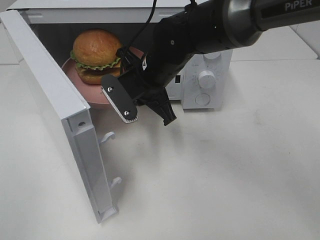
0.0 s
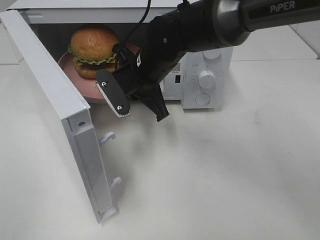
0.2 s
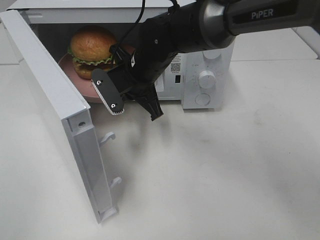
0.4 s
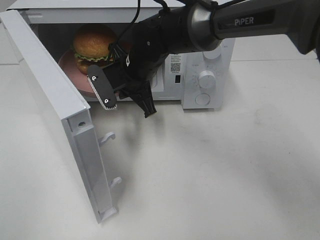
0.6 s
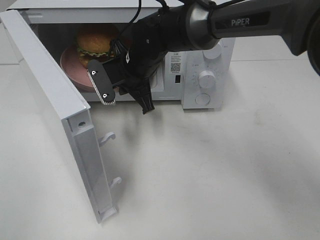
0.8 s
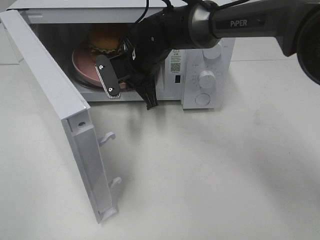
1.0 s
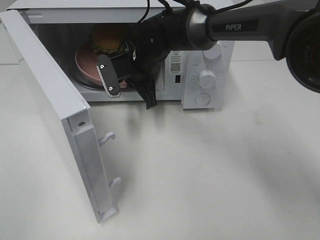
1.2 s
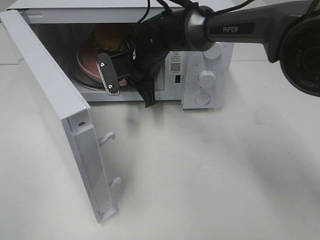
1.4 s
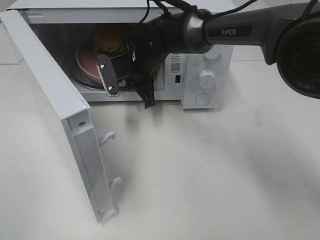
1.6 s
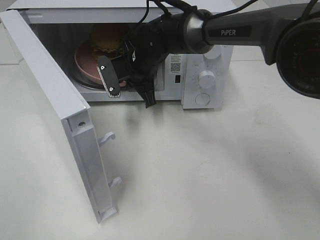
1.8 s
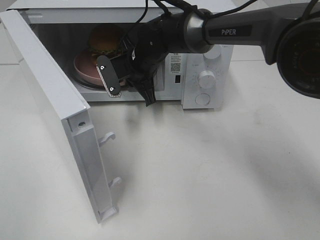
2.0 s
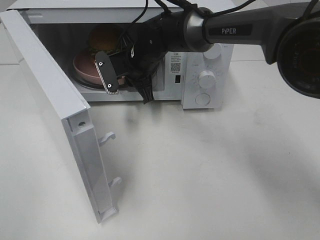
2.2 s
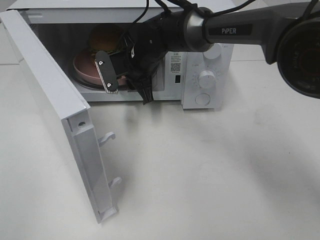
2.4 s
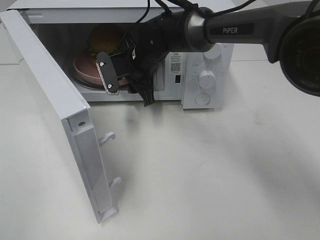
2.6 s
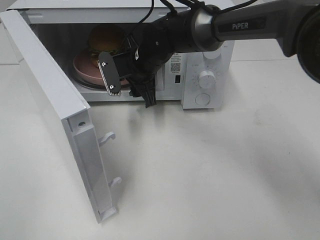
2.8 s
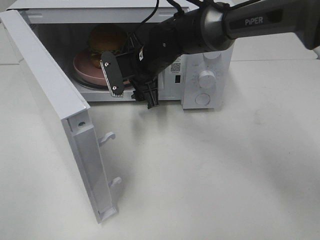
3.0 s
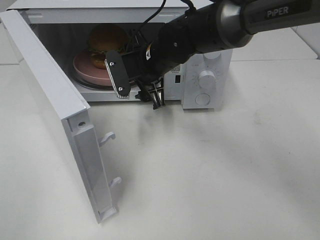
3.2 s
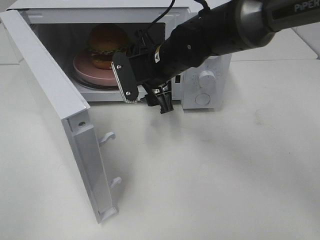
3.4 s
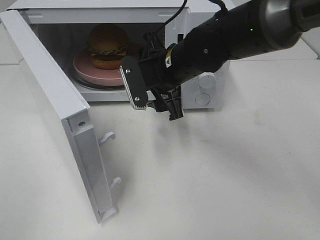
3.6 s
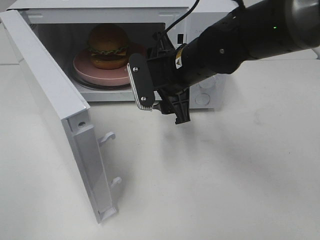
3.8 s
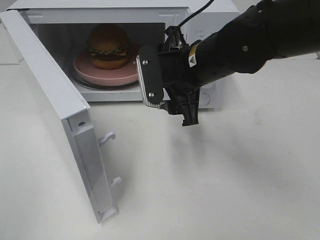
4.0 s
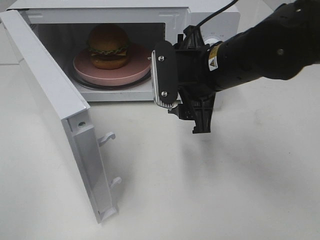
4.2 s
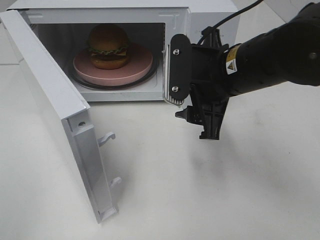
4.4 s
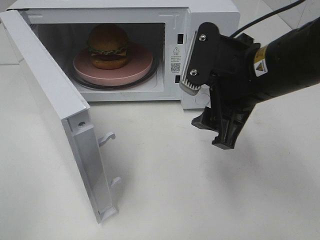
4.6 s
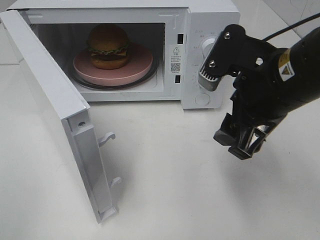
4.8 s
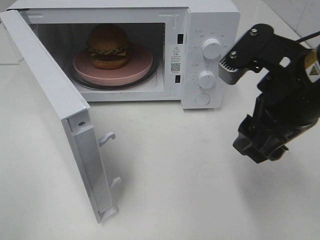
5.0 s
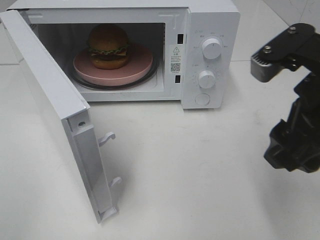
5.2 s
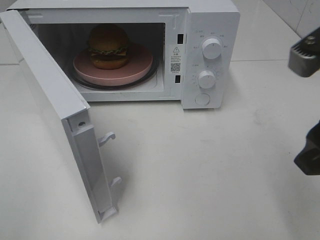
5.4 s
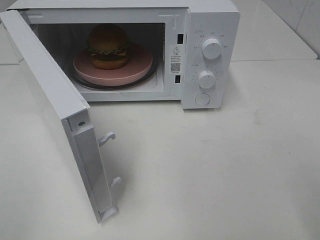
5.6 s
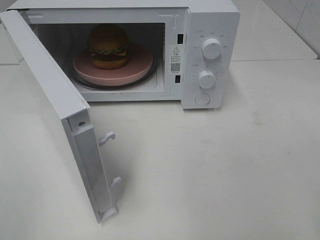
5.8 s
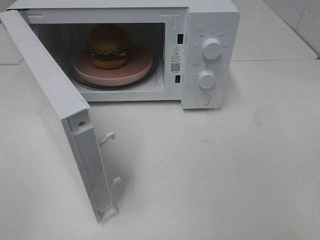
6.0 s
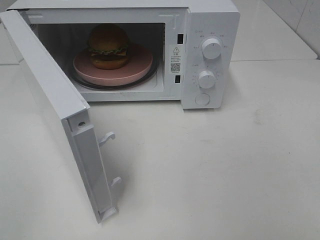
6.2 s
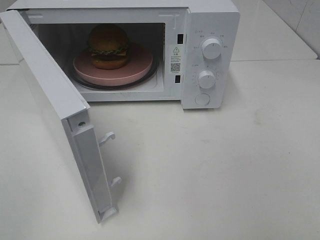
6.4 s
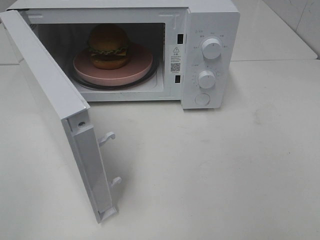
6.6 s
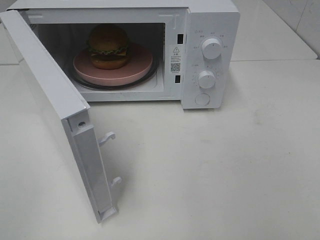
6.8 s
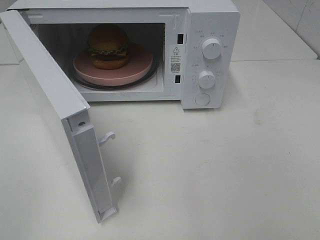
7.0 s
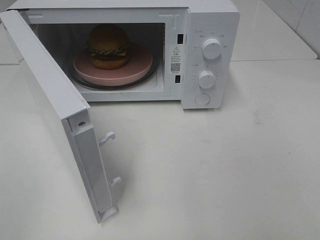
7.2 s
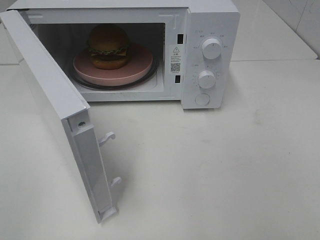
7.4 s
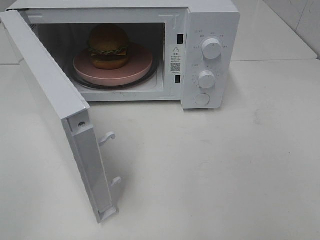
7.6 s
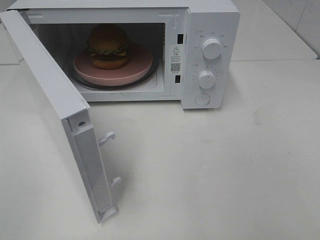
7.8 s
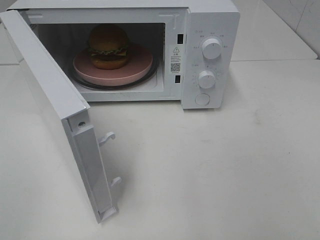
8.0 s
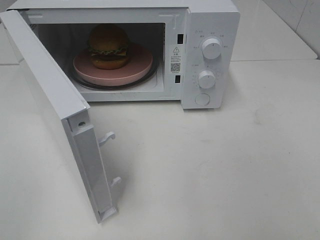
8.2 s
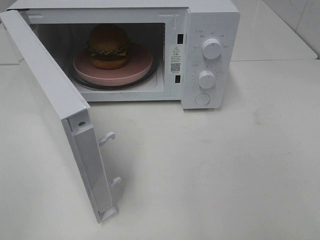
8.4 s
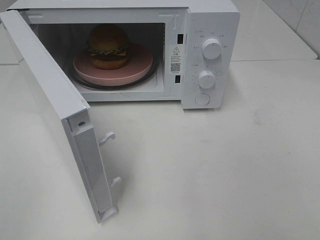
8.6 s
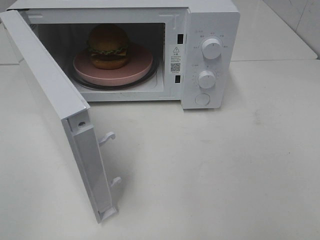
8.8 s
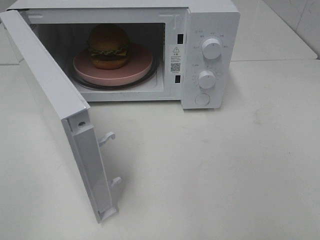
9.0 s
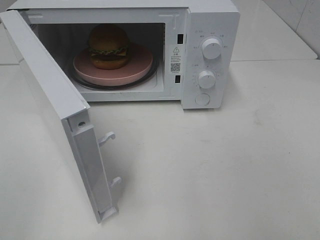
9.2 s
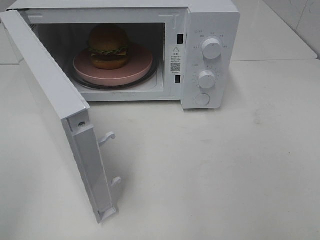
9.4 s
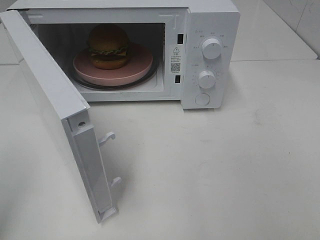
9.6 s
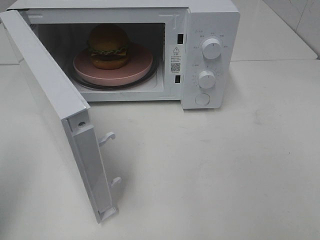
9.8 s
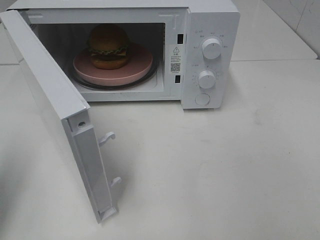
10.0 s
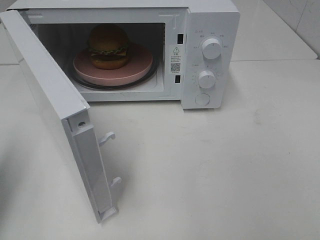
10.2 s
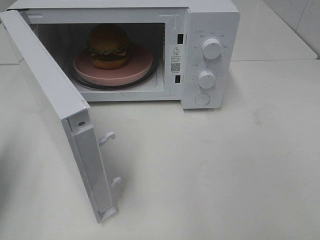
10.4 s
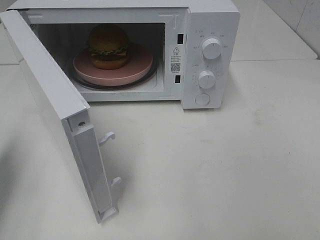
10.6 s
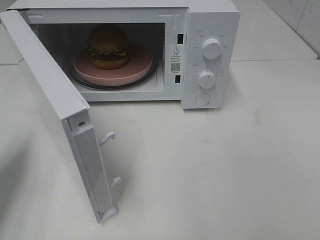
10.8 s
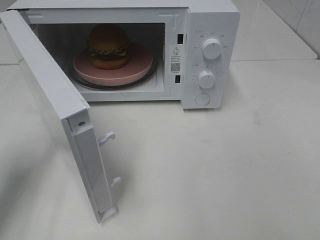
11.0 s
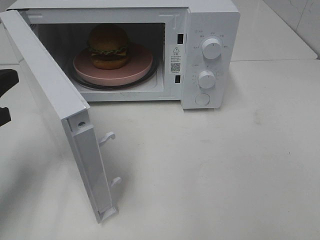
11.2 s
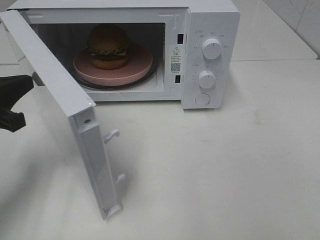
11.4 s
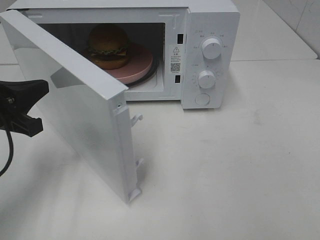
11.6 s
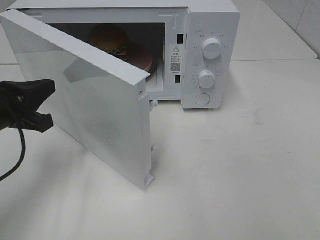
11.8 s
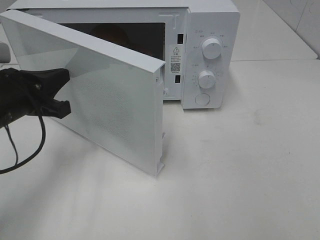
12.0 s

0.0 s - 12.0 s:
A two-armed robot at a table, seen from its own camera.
Task of the whole recording: Heat the burger.
Step, 0.0 s - 2.6 s: Right hand: place the plate in the microwave.
0.0 s - 1.6 s: The right gripper moves forward, approximately 10 cm.
1.6 s - 3.0 s: The right gripper opens up.
3.0 s - 4.4 s: The right gripper goes about 20 cm backward, to the right and upward.
4.4 s - 6.0 s: The right gripper is displaced backward, to the right and upward by roughly 25 cm.
7.6 s - 9.0 s: The two grippers keep their place.
9.0 s - 10.4 s: The left gripper travels forward by roughly 20 cm, and closes.
10.4 s - 12.0 s: The left gripper travels to the right, forward and downward by roughly 15 cm.

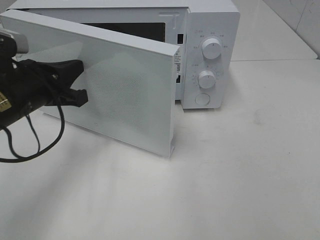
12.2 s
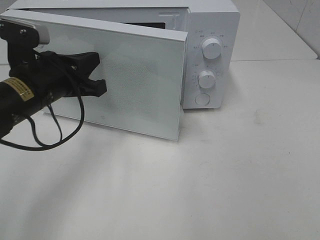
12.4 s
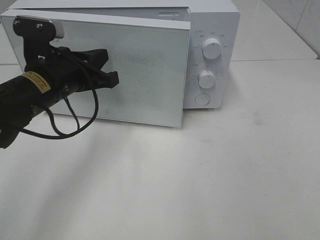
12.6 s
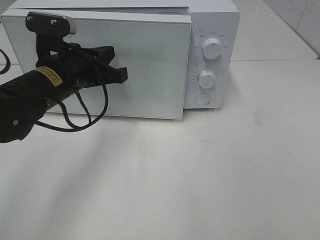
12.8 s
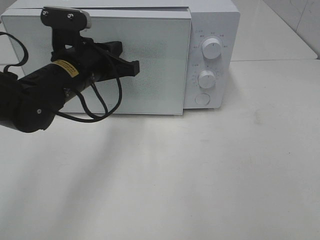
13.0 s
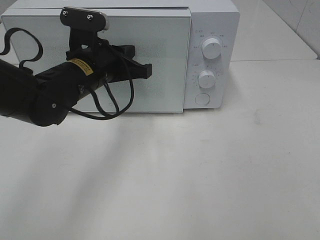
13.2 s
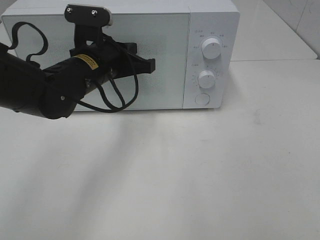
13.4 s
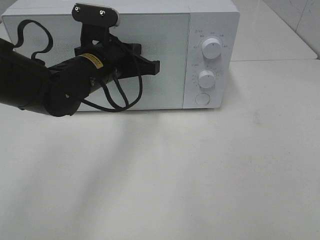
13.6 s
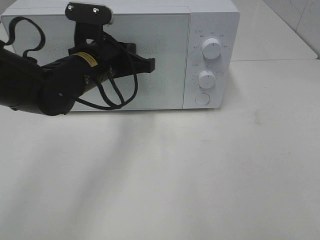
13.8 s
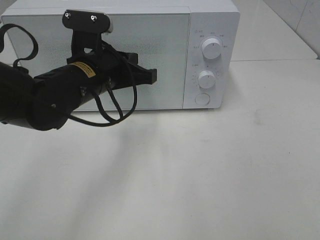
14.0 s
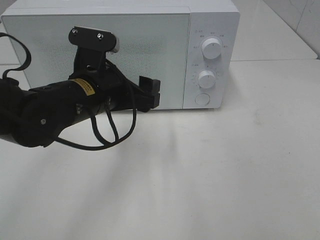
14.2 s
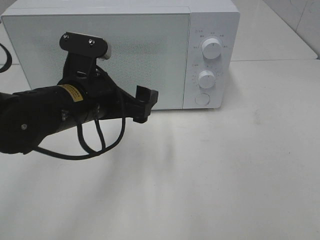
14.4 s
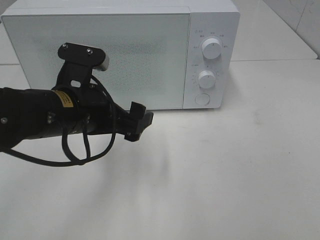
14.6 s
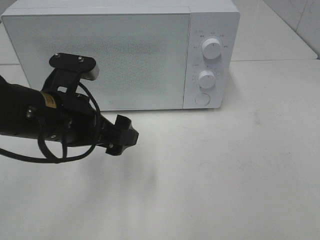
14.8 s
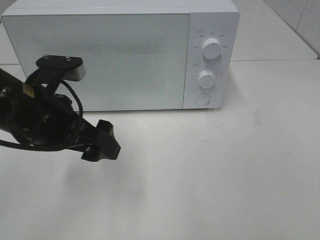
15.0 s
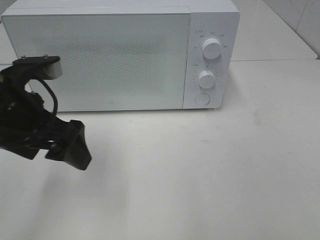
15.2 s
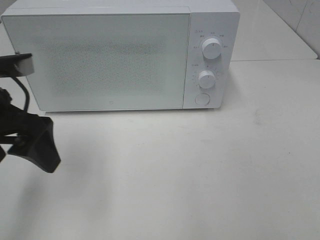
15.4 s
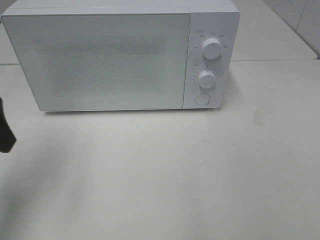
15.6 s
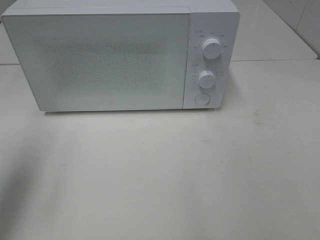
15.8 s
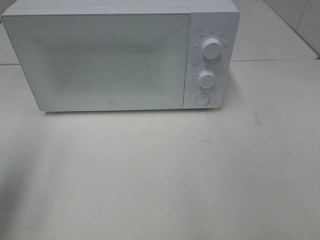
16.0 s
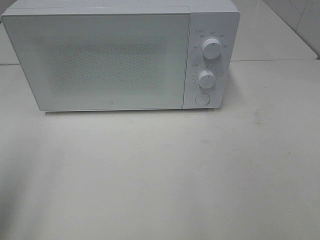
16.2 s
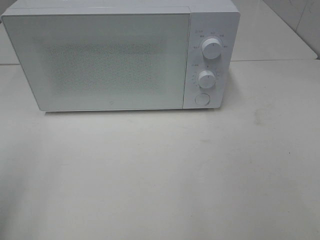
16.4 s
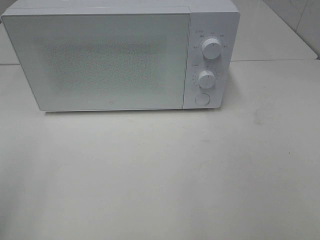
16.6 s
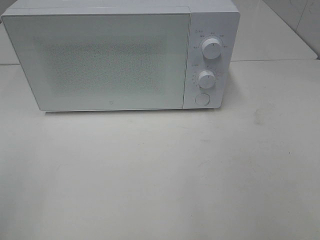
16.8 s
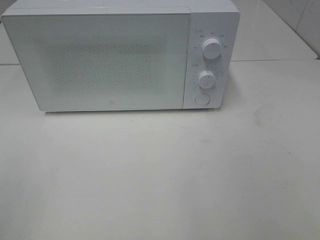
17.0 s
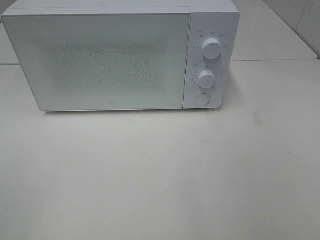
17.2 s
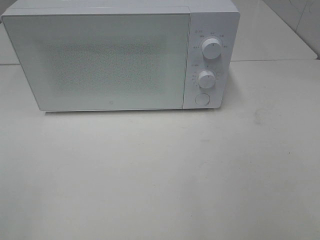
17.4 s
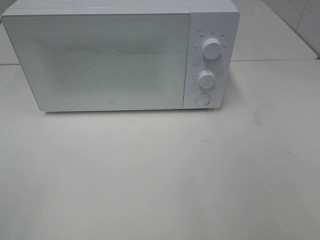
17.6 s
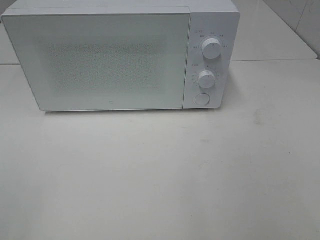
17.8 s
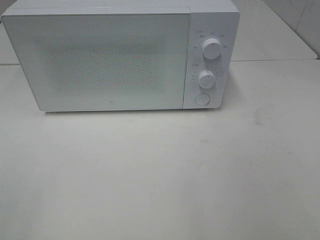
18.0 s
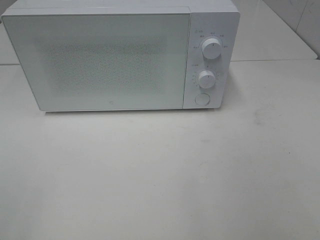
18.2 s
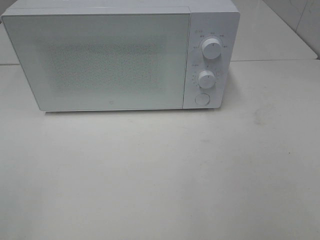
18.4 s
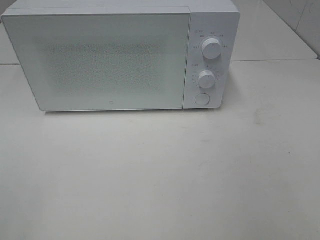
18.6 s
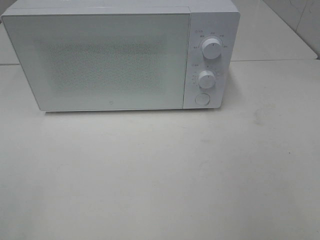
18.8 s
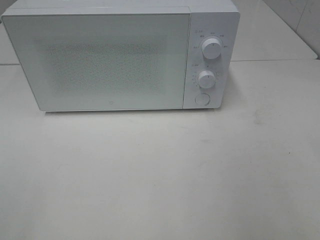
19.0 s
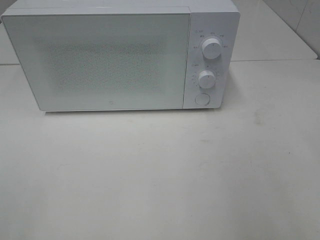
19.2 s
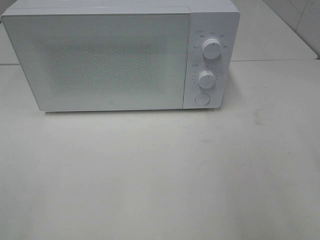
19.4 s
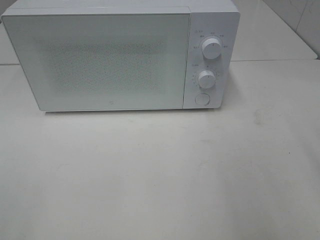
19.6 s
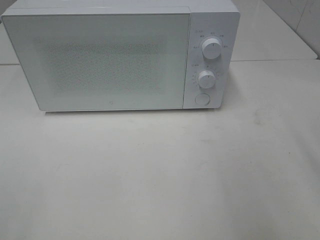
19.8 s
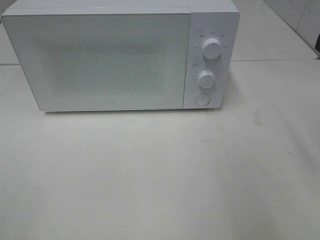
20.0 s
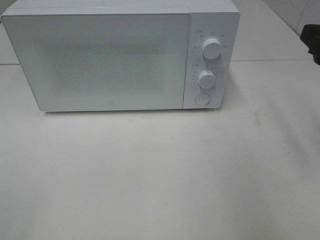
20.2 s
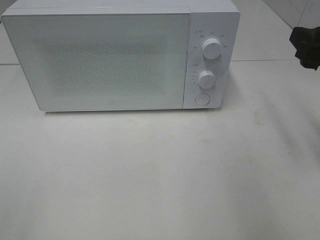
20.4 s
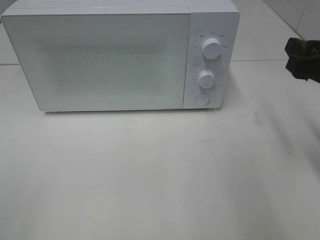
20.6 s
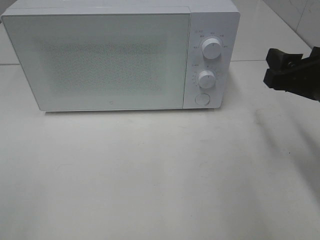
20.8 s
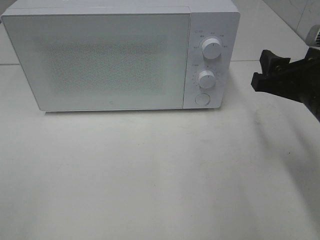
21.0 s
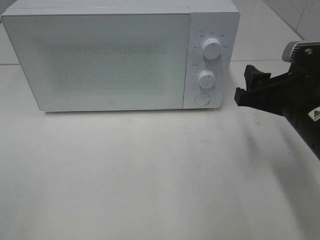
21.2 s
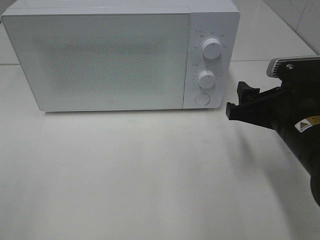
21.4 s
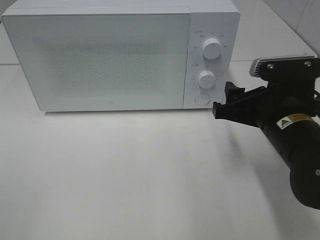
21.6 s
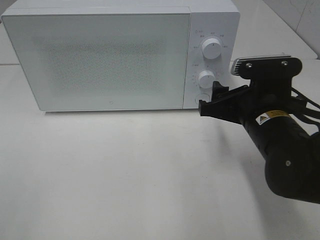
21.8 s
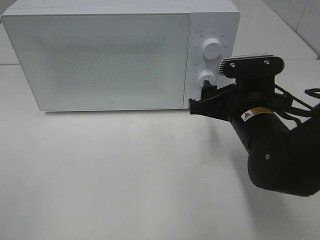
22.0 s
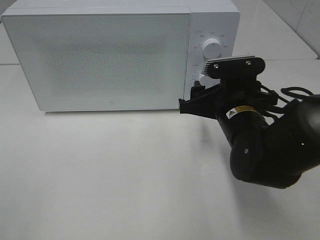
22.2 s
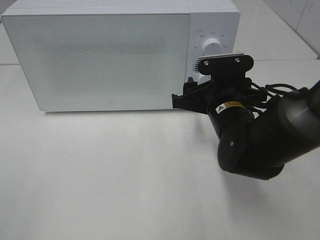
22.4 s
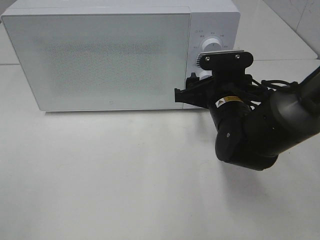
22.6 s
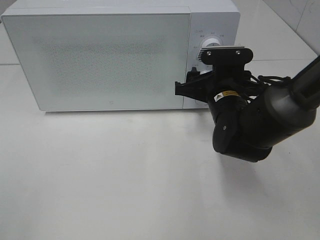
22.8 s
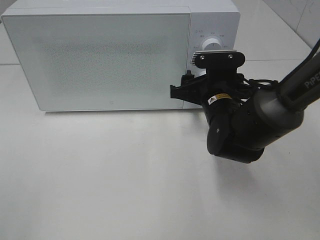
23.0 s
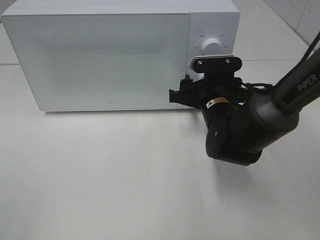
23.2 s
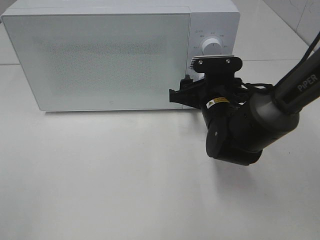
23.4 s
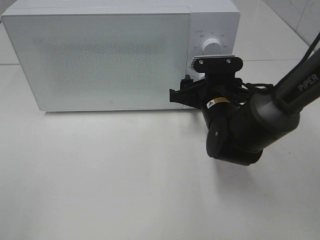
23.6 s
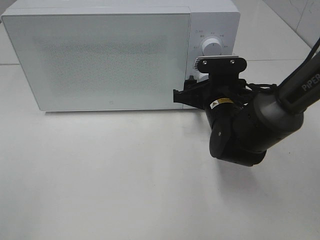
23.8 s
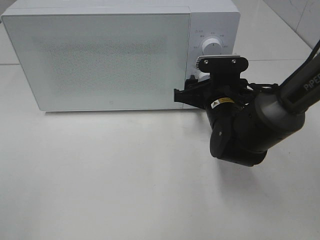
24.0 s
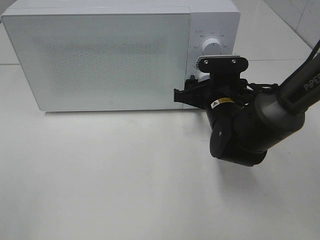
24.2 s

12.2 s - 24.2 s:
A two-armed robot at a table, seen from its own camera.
Task of the whole recording: Heat the burger.
Step, 12.2 s - 14.4 s: Left hand: close the microwave door.
12.2 s - 13.8 s: The left gripper moves to the right and forward, some 10 cm.
13.8 s - 15.2 s: The left gripper travels backward and to the left by approximately 15 cm, and opens its fingers.
15.2 s - 16.6 s: The left gripper travels backward and to the left by approximately 20 cm.
19.8 s - 21.2 s: The right gripper heads downward, to the left and forward, covering some 15 cm.
21.2 s - 22.6 s: The right gripper shifts about 15 cm forward, to the left and downward.
22.6 s - 24.2 s: The grippers move only a little.
